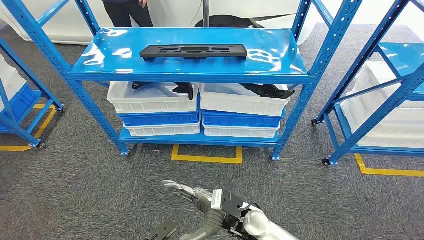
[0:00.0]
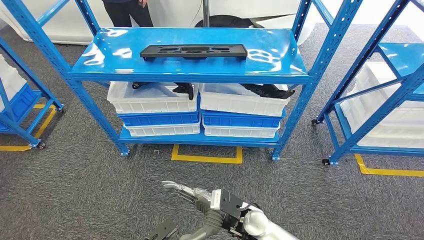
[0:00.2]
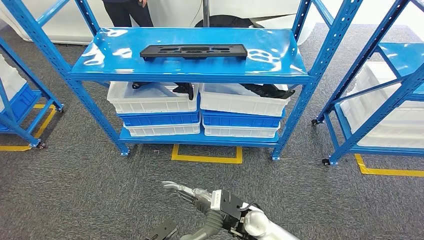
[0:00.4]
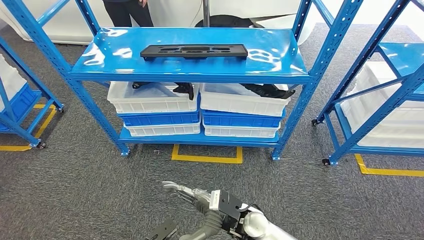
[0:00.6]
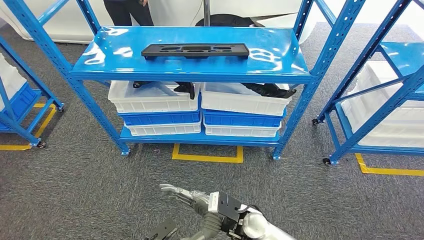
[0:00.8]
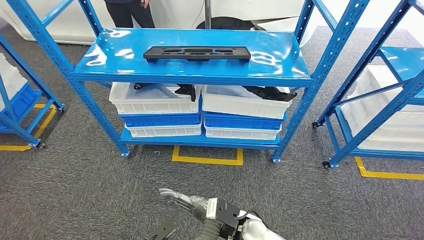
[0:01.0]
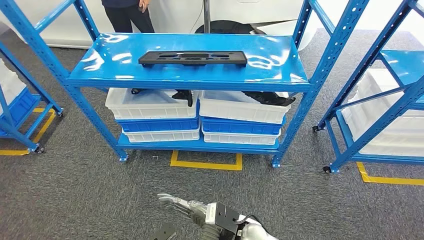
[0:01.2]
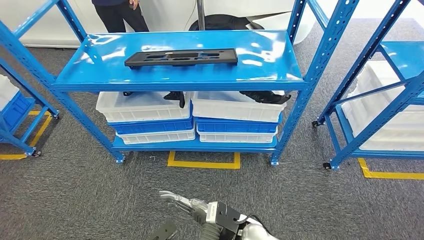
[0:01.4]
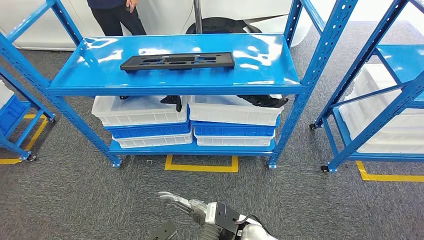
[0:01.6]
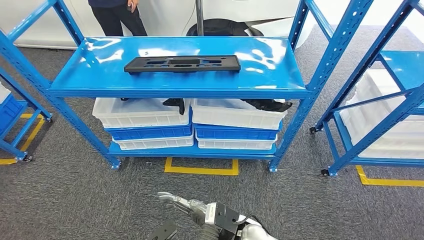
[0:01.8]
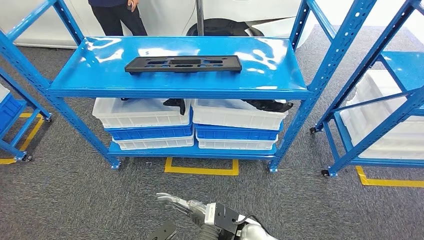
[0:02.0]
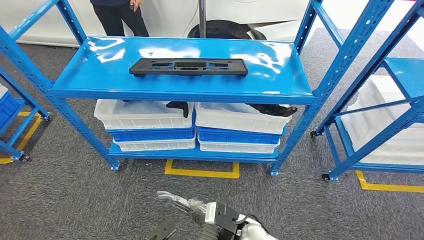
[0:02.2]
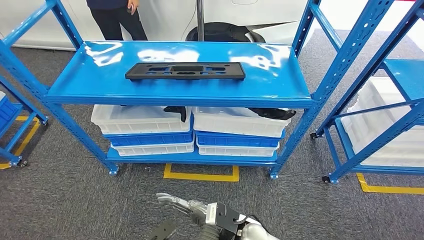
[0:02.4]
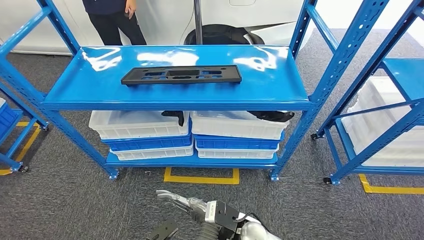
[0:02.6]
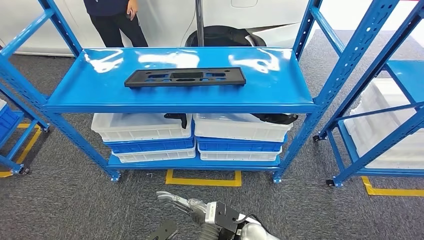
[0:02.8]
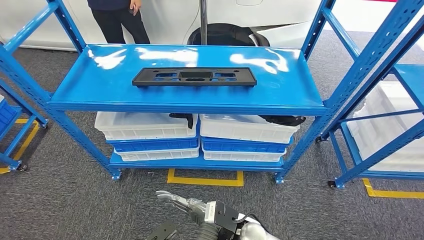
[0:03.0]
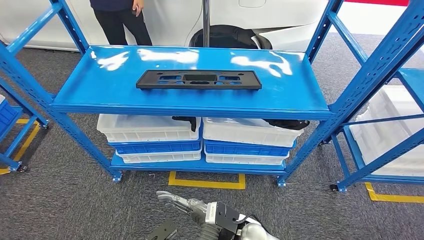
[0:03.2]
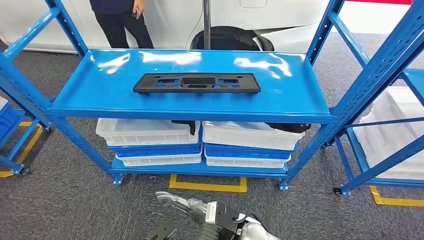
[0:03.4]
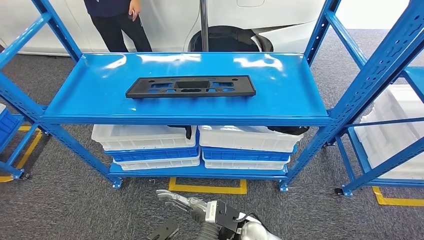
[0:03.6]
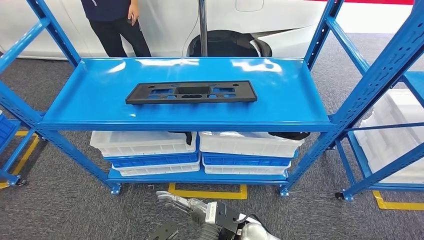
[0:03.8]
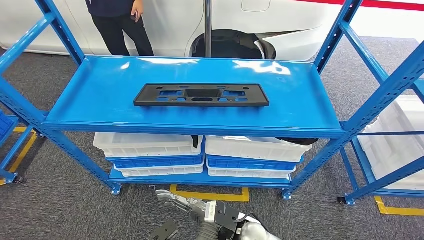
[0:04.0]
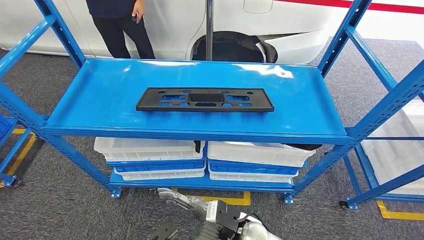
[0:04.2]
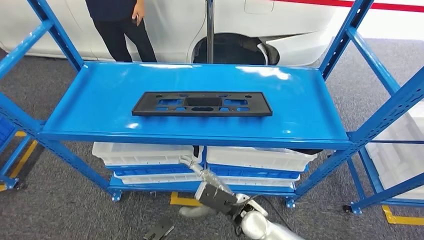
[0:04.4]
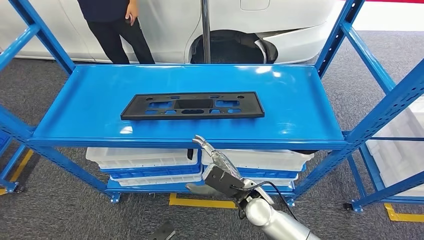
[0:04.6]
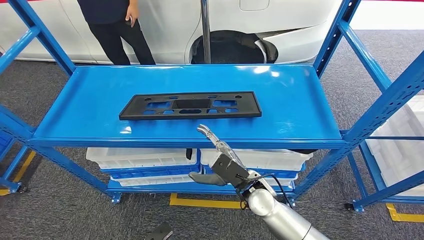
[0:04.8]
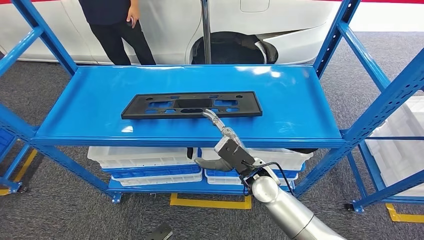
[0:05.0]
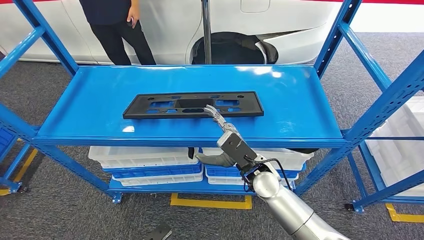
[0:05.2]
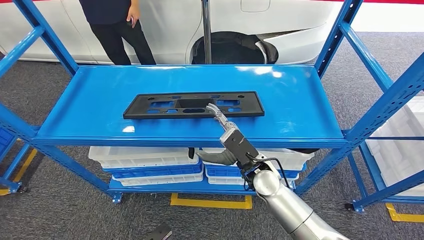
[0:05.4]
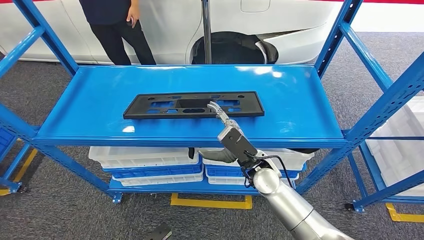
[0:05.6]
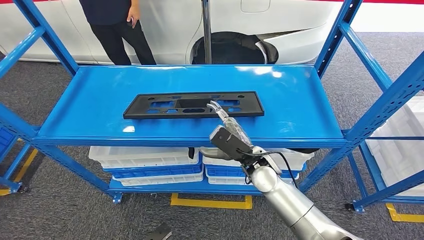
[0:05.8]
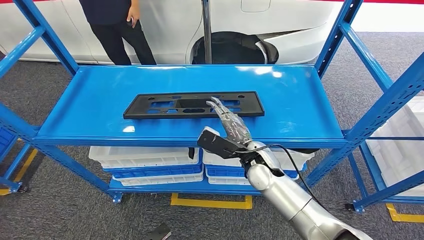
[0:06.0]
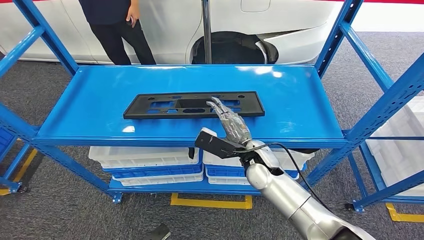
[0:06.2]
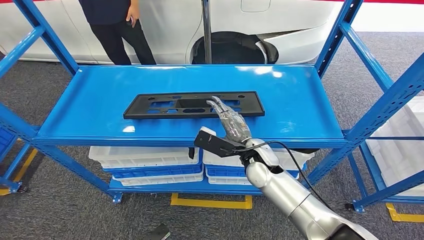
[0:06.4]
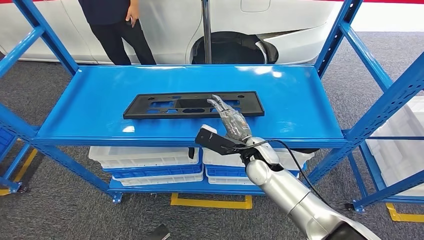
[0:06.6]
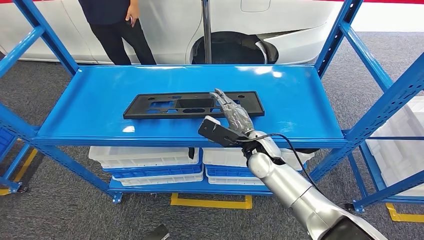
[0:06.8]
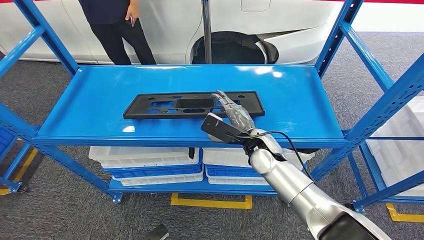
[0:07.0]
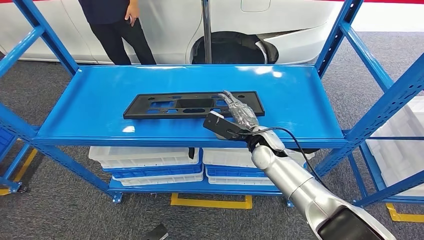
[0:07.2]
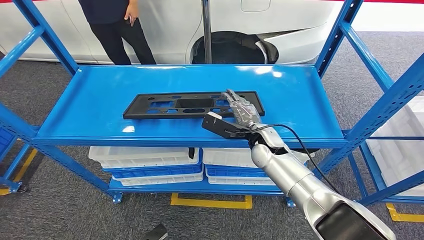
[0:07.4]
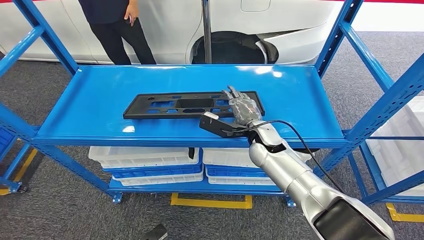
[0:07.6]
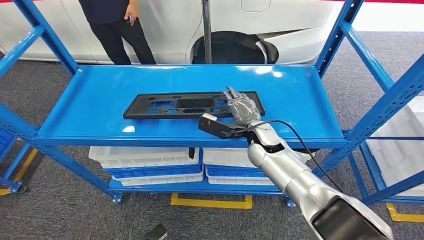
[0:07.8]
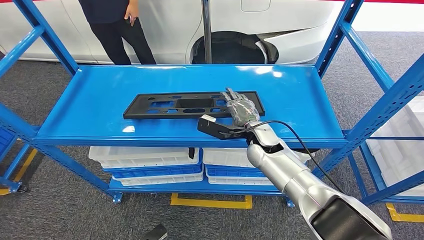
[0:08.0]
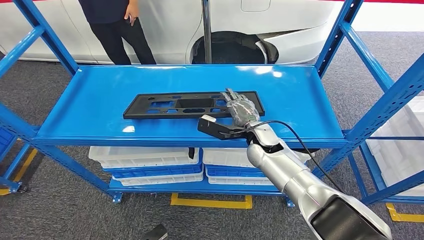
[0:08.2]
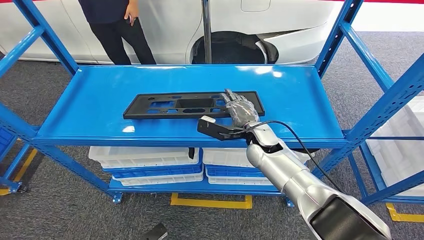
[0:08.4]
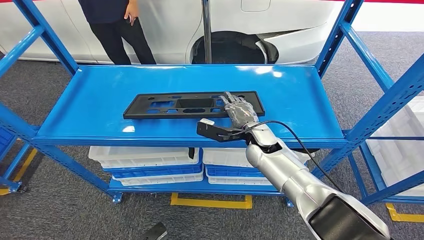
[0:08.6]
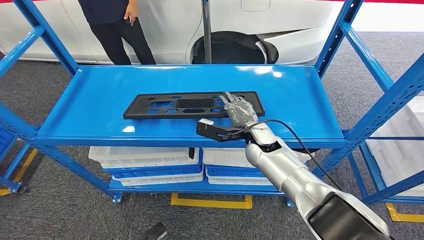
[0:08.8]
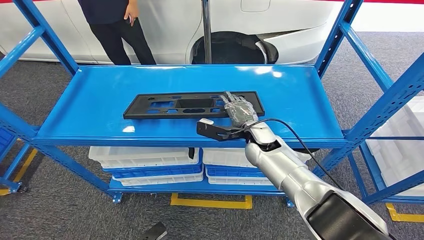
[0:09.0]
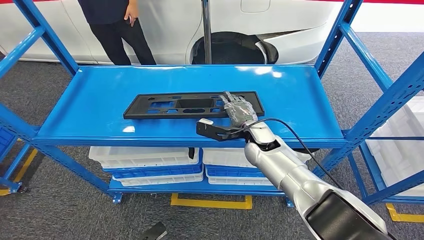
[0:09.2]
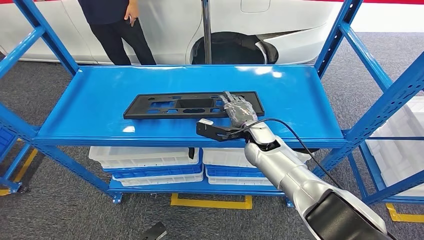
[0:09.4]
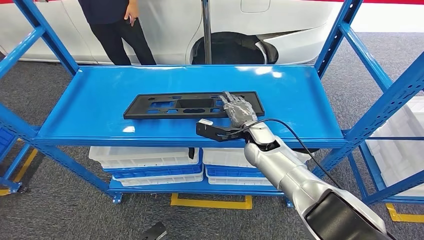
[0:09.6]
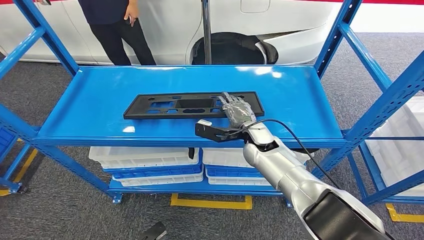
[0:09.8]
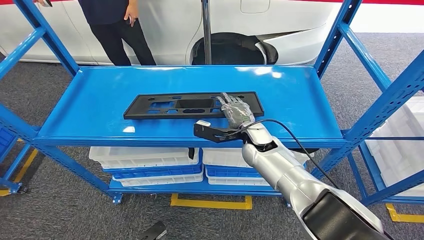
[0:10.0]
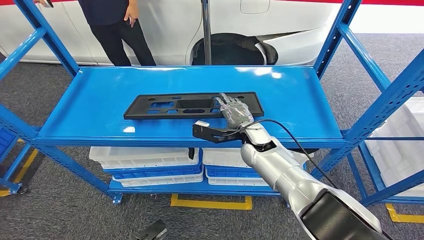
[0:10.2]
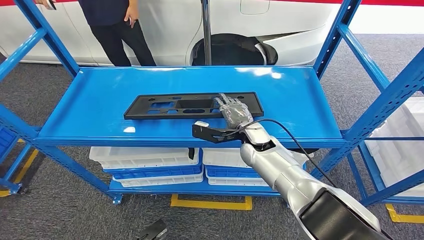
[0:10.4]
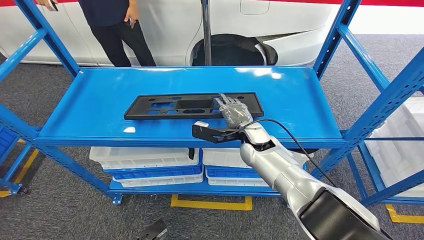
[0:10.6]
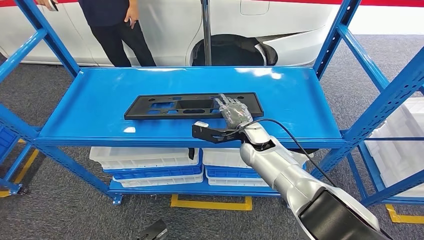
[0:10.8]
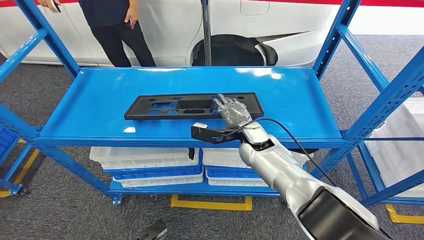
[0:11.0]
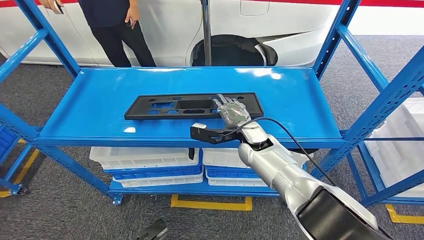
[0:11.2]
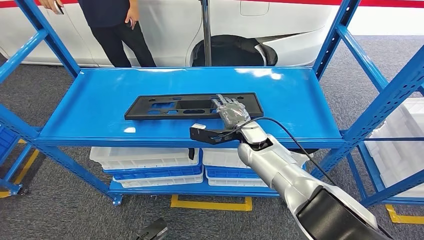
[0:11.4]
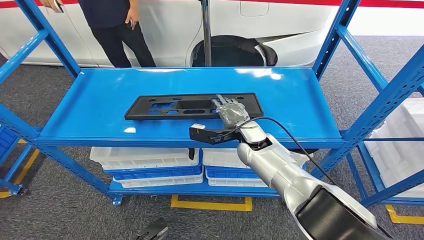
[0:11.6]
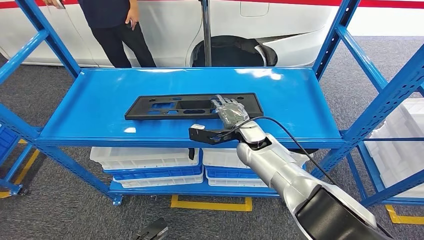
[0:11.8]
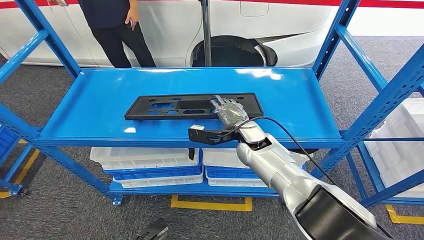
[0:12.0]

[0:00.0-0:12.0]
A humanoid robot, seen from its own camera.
0:06.0 to 0:07.6: The right hand goes roughly 5 cm forward.
0:07.6 to 0:10.4: There are only small adjustments of the hands.
0:10.4 to 0:12.0: The hands stay close to where they were, moving slightly.

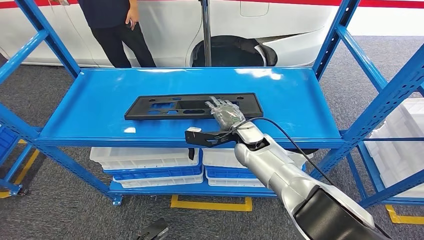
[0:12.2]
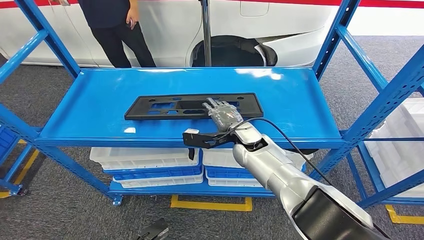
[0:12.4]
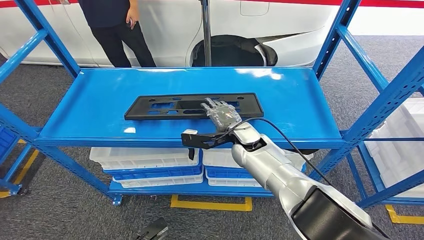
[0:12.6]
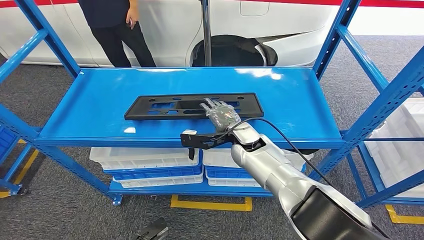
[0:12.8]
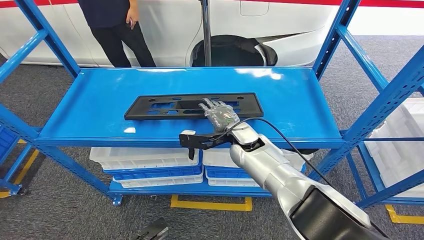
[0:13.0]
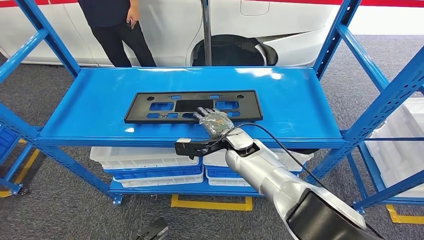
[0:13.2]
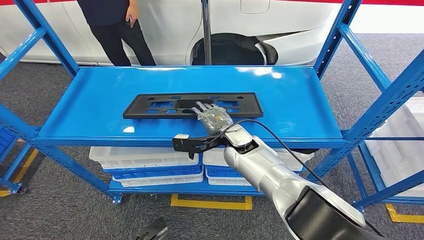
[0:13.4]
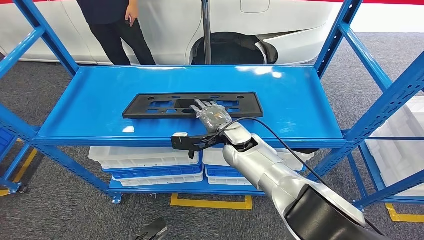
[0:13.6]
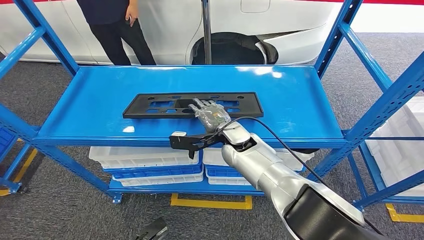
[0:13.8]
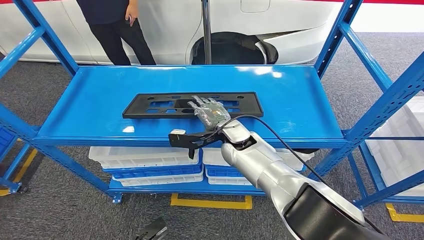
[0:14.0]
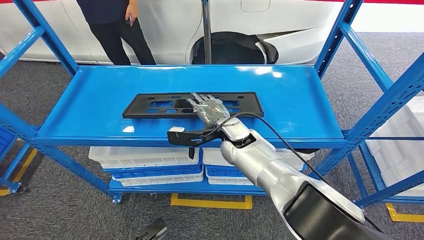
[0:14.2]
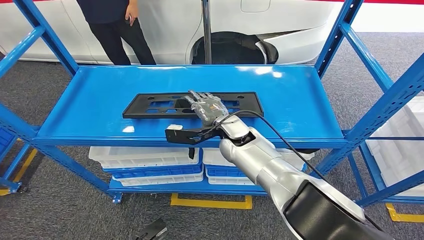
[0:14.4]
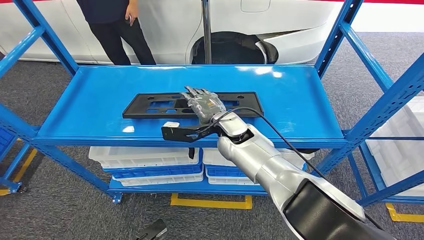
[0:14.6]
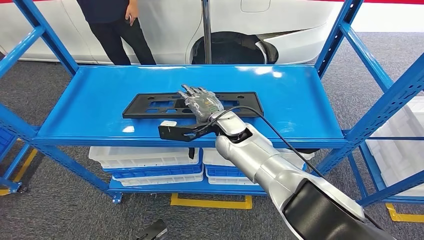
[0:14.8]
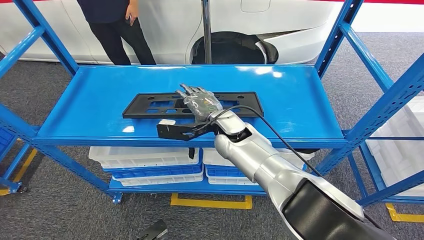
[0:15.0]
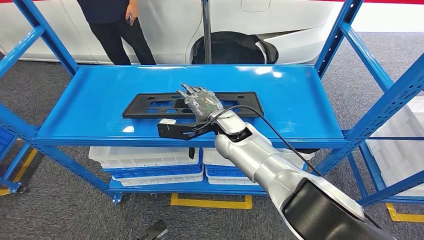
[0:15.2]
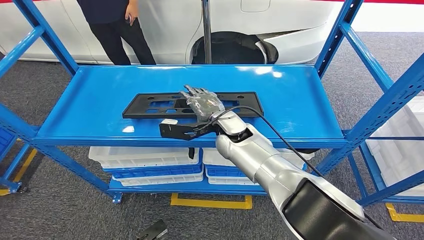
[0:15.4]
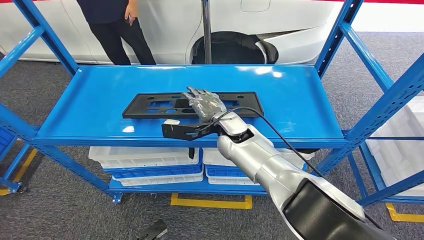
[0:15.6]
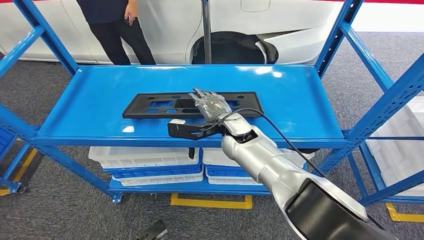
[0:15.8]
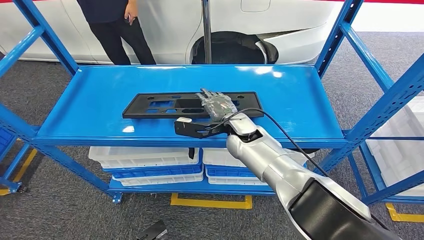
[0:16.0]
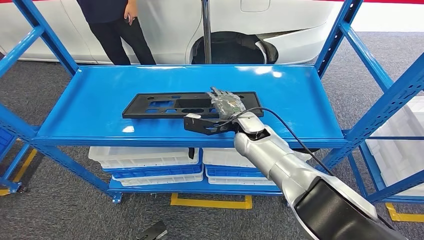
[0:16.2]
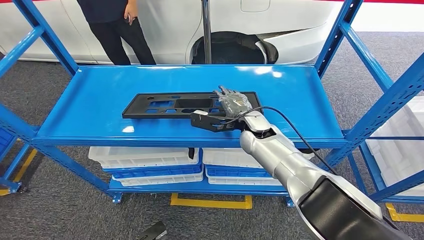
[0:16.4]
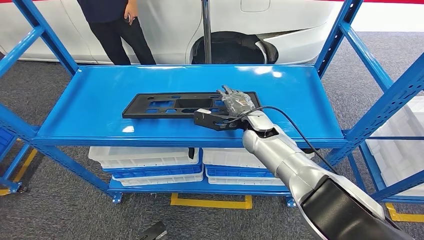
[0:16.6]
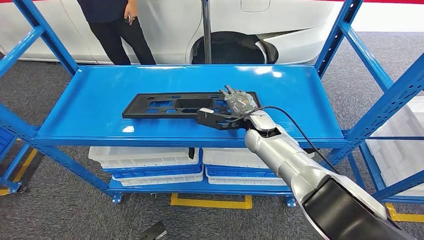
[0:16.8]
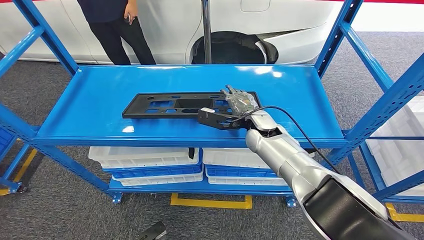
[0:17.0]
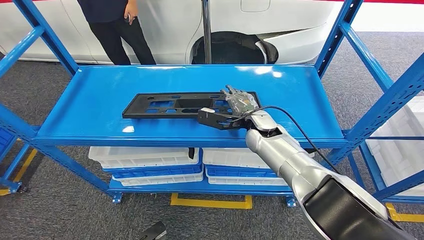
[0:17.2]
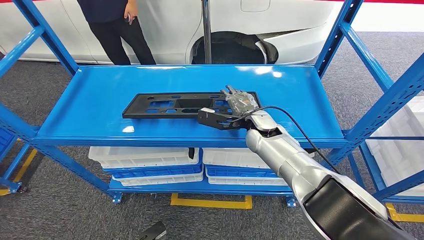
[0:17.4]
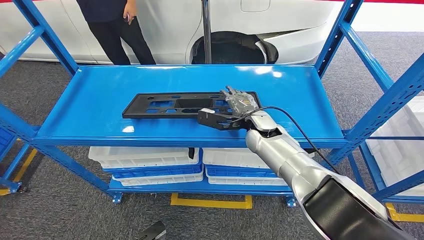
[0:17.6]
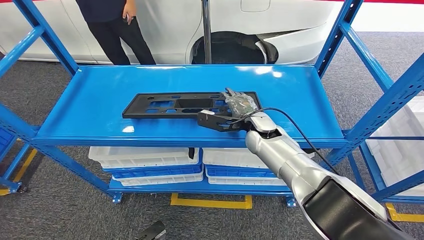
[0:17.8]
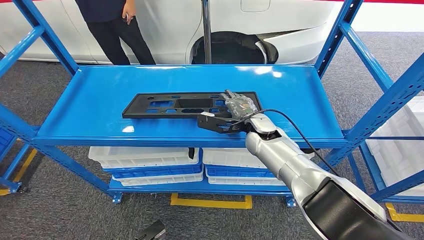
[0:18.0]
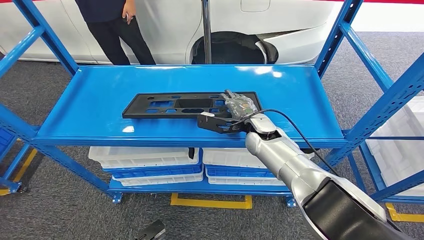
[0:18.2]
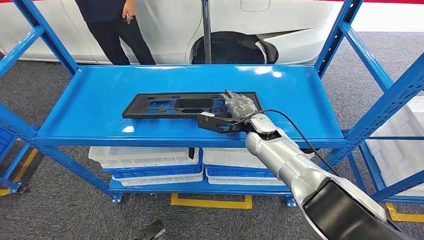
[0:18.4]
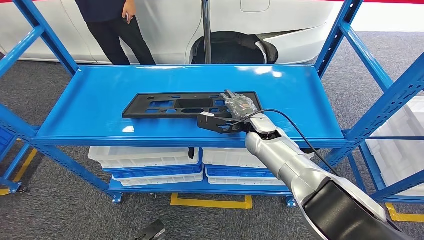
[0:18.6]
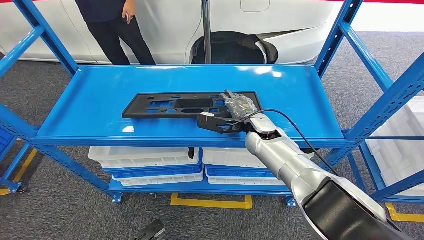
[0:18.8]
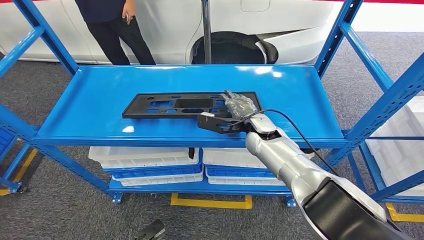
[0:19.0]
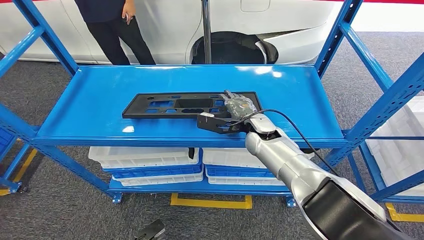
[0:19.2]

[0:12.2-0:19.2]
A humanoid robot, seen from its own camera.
0:13.6 to 0:15.0: The hands move only a little.
0:15.0 to 0:16.4: The right hand is displaced to the right by roughly 5 cm.
0:16.4 to 0:17.8: The hands stay close to where they were, moving slightly.
0:17.8 to 0:19.2: Neither hand changes place.
